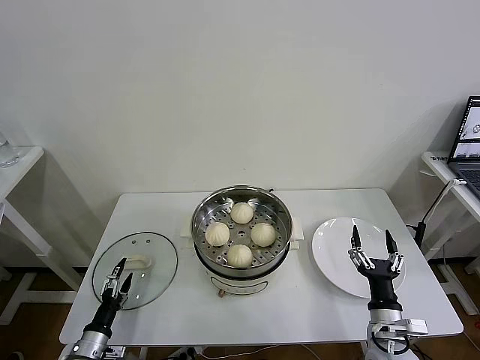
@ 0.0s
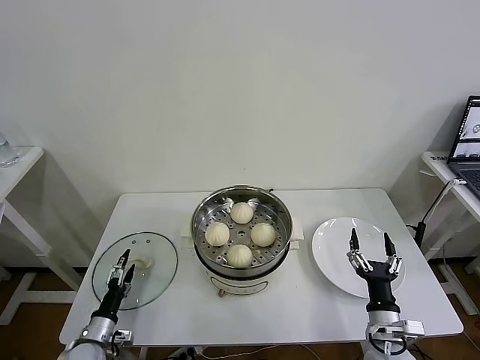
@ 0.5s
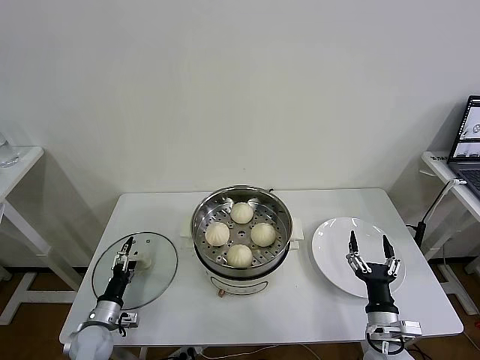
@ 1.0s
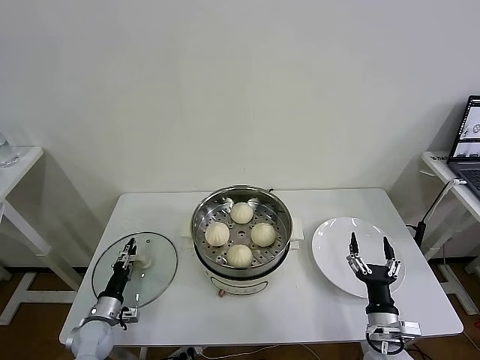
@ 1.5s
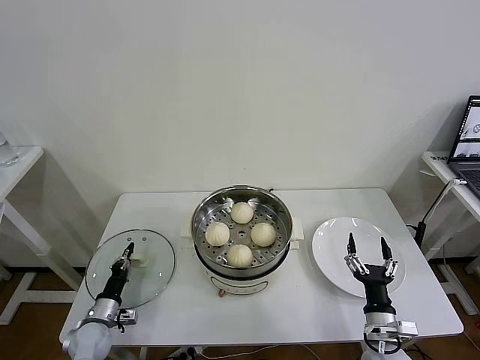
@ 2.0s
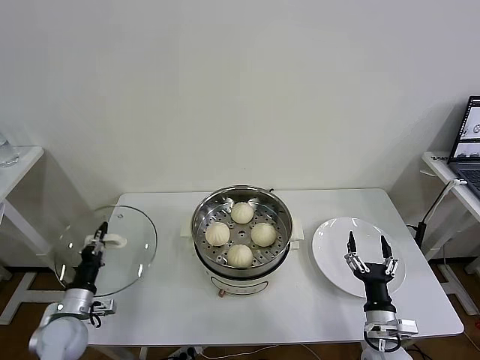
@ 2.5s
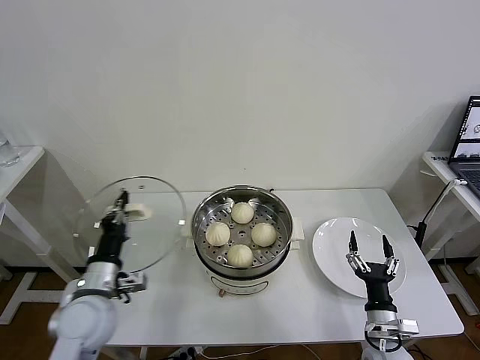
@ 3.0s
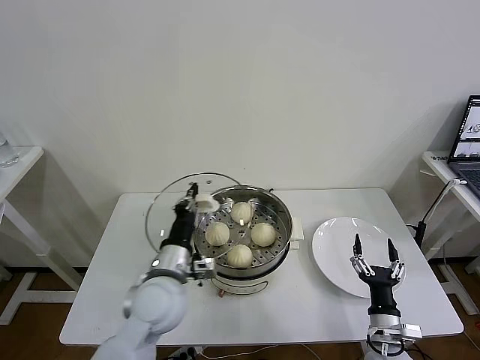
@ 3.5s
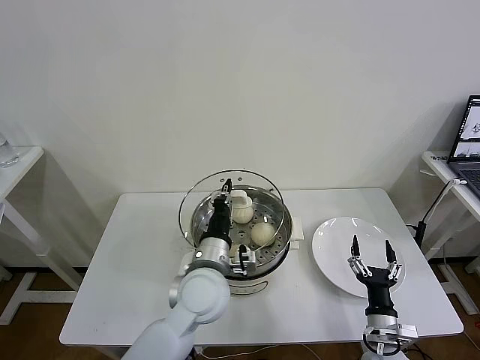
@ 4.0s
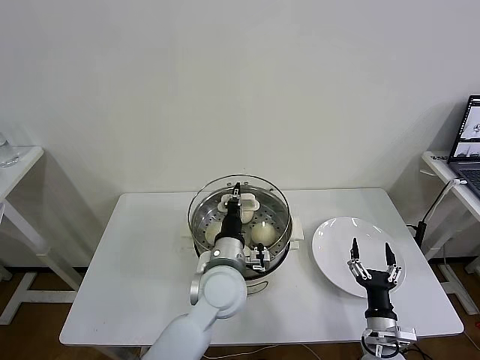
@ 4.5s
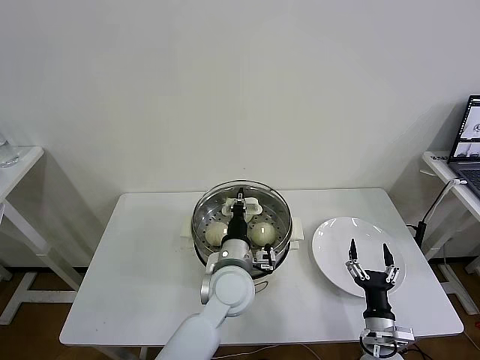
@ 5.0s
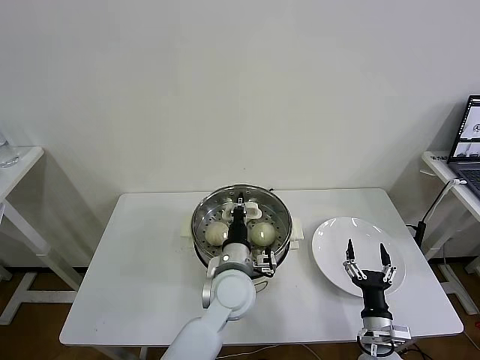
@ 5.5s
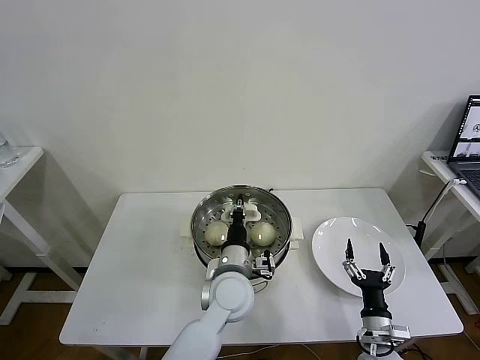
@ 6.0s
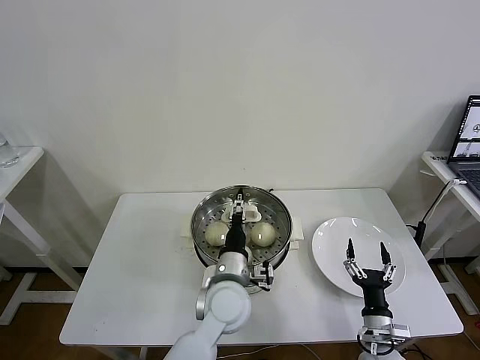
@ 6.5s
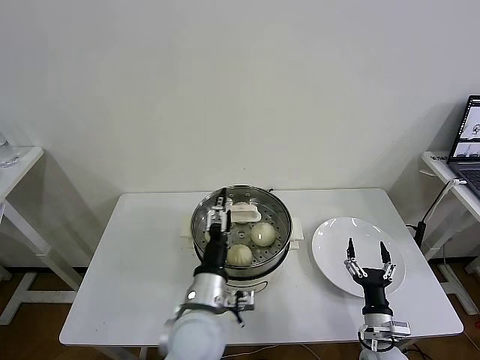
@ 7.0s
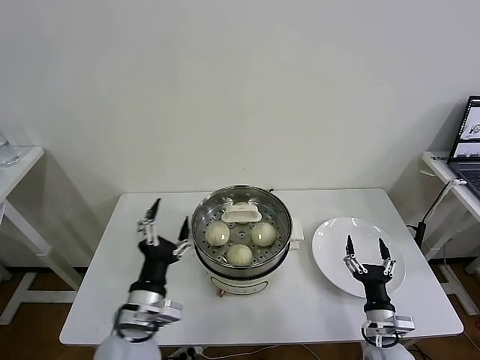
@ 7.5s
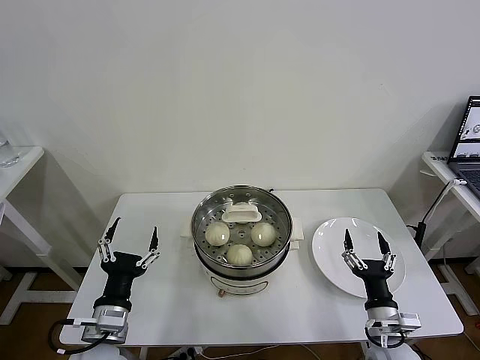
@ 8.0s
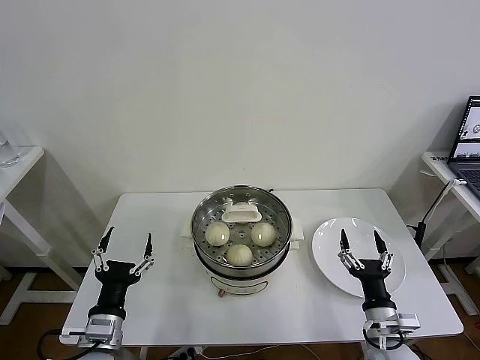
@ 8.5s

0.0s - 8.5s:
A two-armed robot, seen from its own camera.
Task of the whole recording: take steamed baozi put them in steamer then cover it.
Step, 0.0s - 2.0s: Grasp the pot lid with left gripper.
Step, 2.5s - 6.5s: Place the pot lid on the steamer with left gripper.
0.0s - 2.0s: The left gripper shifts approximately 10 cm forward, and closes its fingers.
2.0s - 4.0s: The left gripper is displaced to the right and upward by some 40 cm.
4.0s - 6.5s: The left gripper heads downward, covering roughly 5 cm, and opens.
6.5s - 8.5s: The right gripper heads upward, covering approximately 5 cm; the left gripper heads to the left and backward, covering some 25 cm, and opens up.
